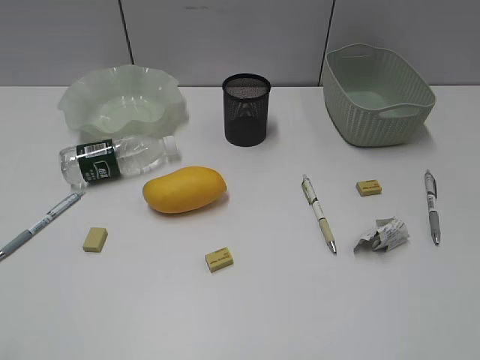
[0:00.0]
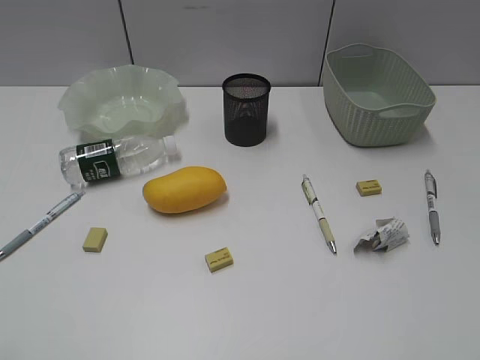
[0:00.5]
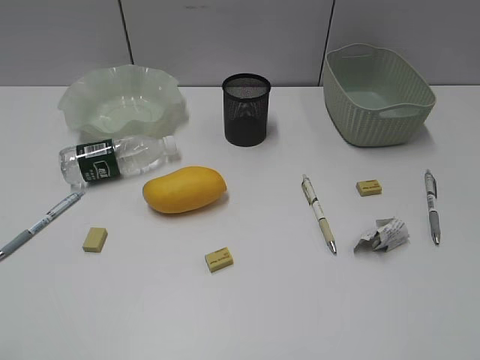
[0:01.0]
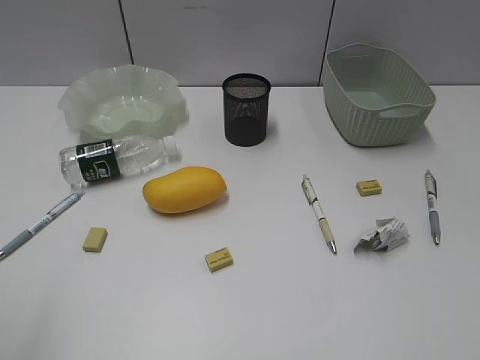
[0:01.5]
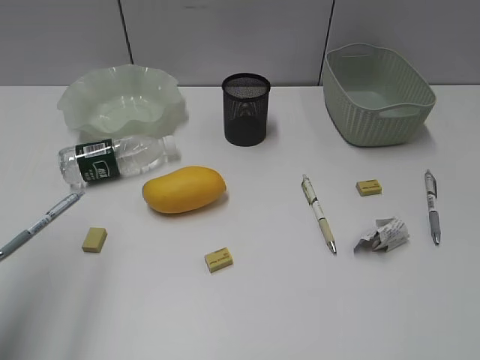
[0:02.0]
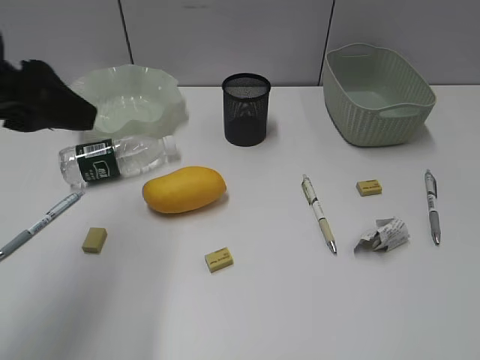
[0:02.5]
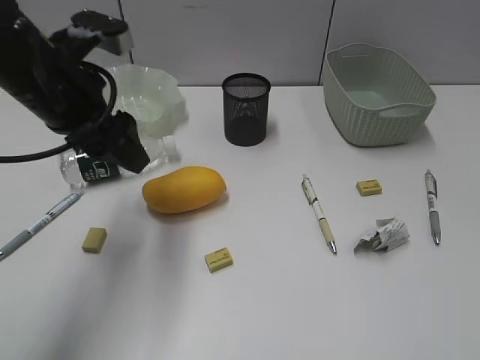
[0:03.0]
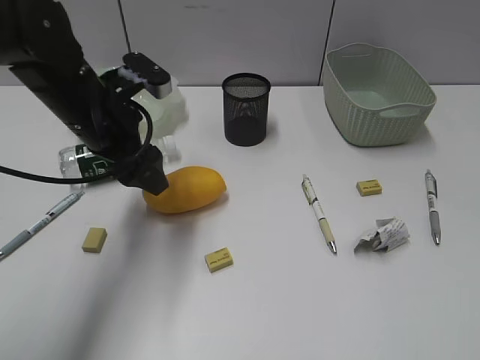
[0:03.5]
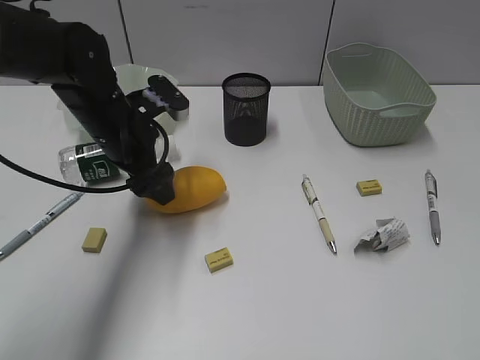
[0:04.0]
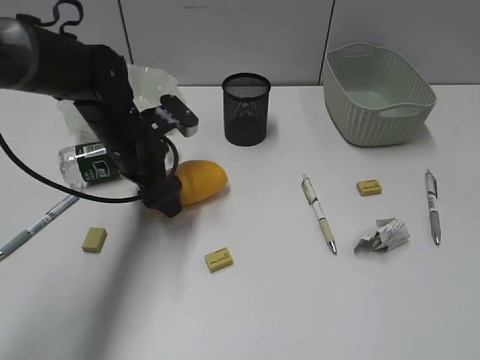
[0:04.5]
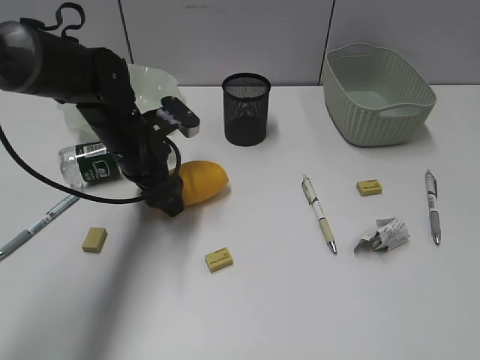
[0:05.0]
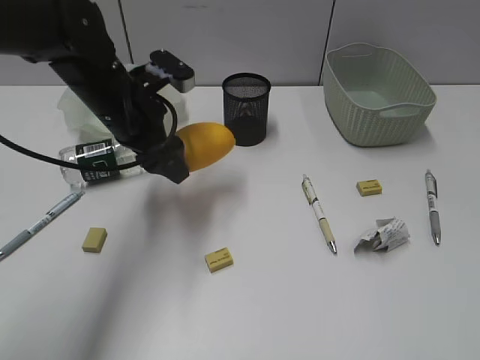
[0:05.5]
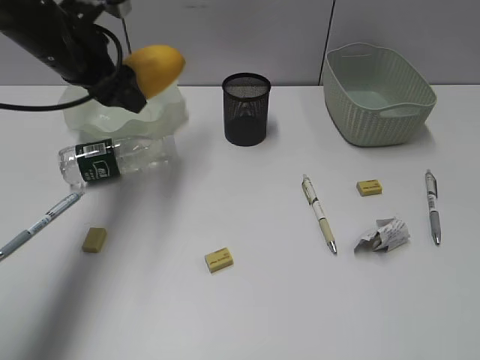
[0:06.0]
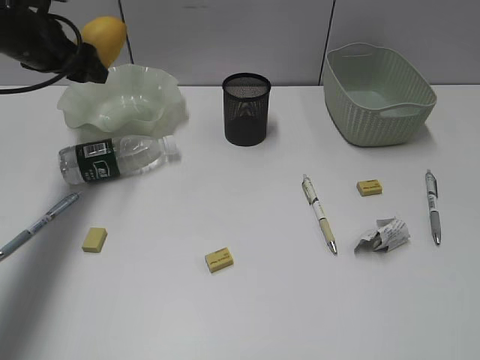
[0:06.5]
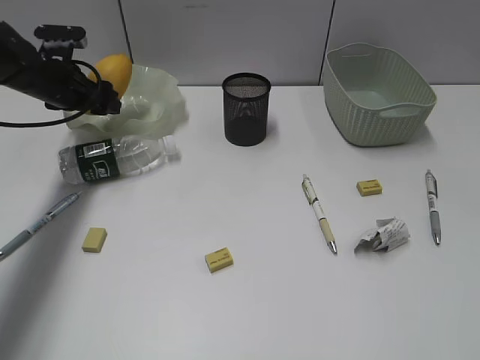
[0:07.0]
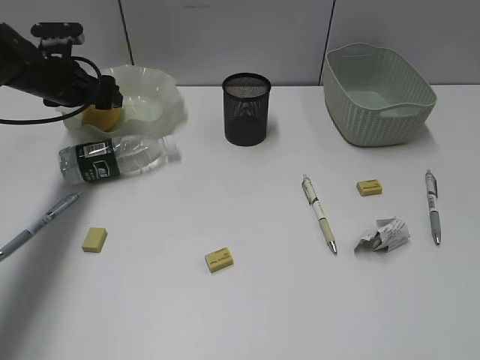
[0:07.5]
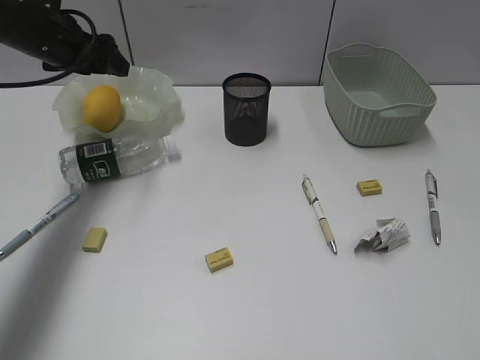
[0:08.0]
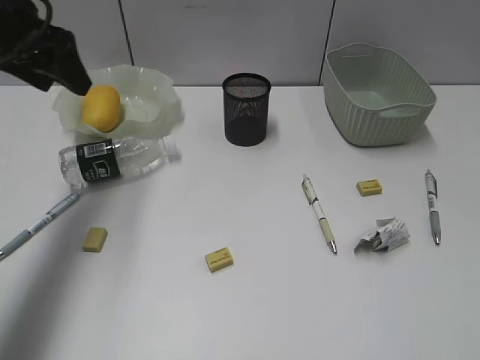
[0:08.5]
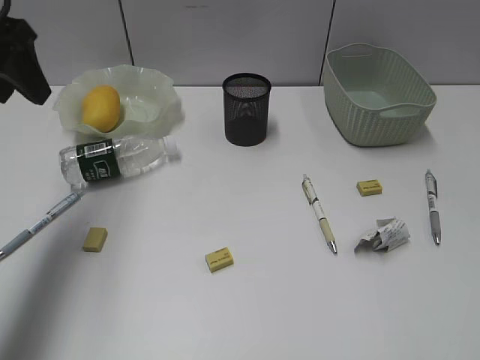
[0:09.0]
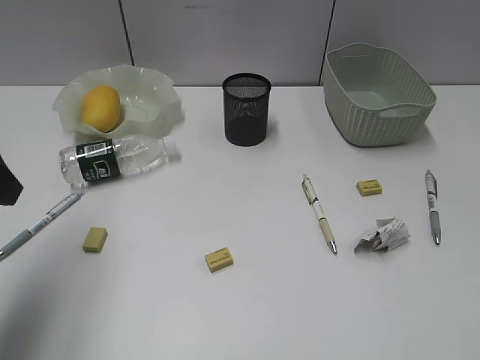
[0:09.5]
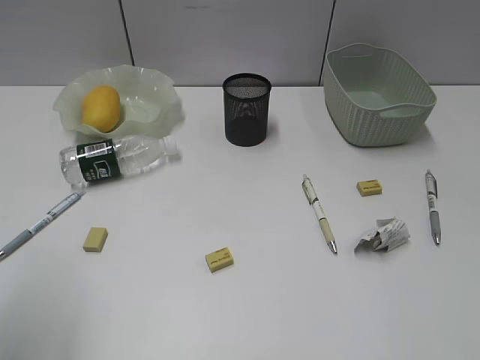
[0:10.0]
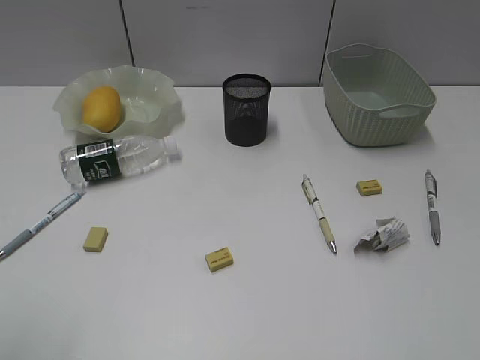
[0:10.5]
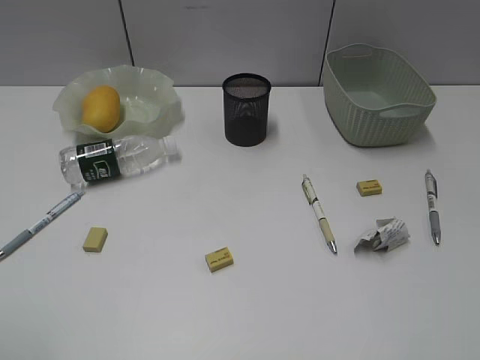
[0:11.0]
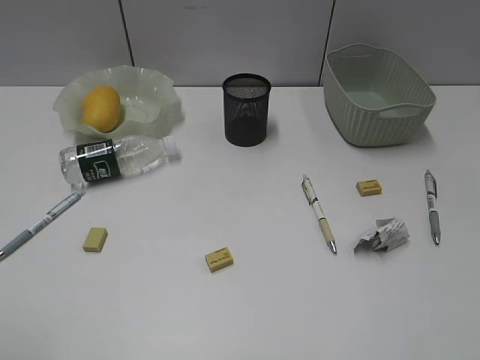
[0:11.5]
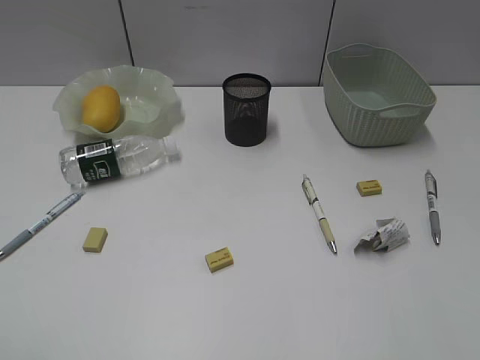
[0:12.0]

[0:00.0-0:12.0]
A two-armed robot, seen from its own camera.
Step, 0:02.5 to 0:05.0: Grasp the mango with left gripper.
Step, 0:05.5 to 0:07.5: Place the mango in the plate with left gripper.
0:02.0 to 0:04.0: The left gripper is displaced forward, downward and to the right by about 30 cm.
0:04.0 to 0:06.0: The left gripper is displaced upward and to the left by some 10 cm.
0:06.0 to 0:08.0: The left gripper travels downward and back again, roughly 10 cm each way.
0:08.0 to 0:10.0: The left gripper heads backward, covering about 35 cm.

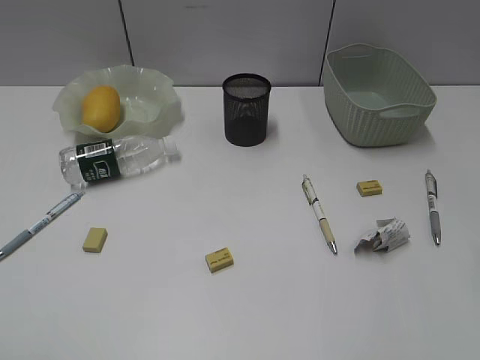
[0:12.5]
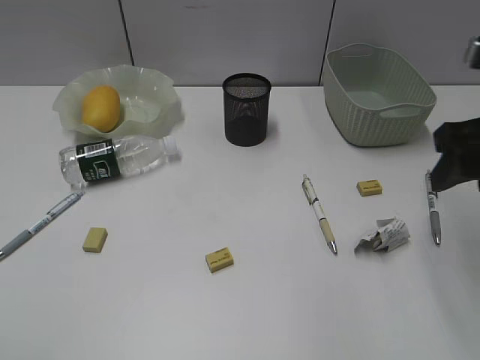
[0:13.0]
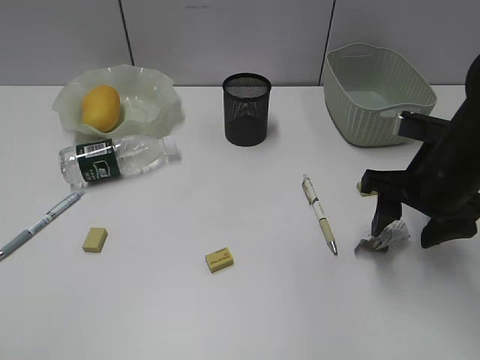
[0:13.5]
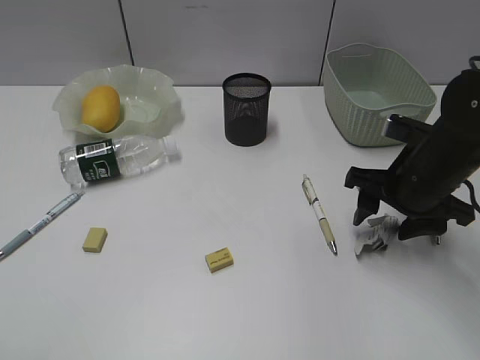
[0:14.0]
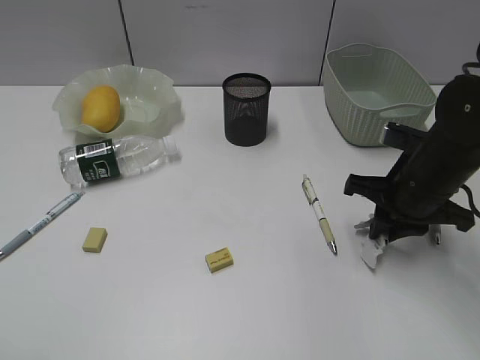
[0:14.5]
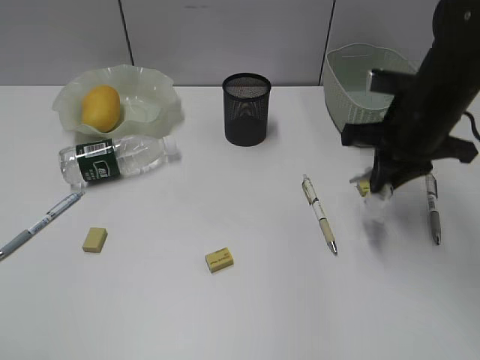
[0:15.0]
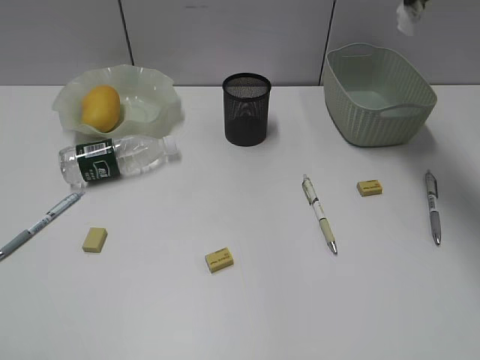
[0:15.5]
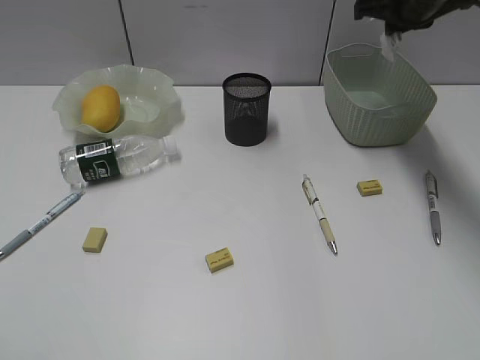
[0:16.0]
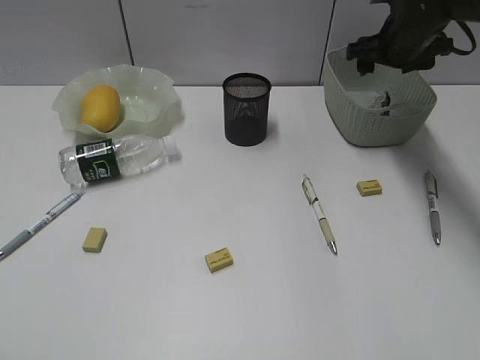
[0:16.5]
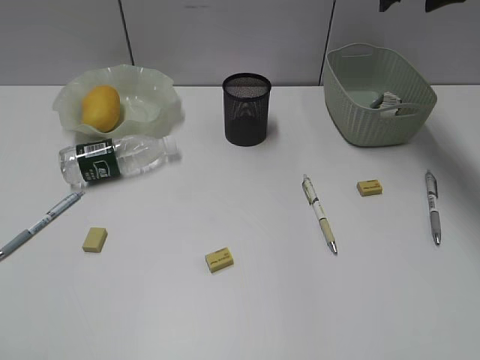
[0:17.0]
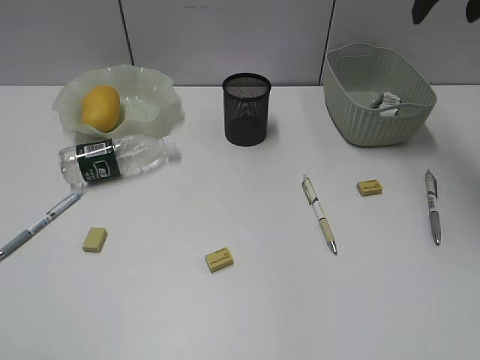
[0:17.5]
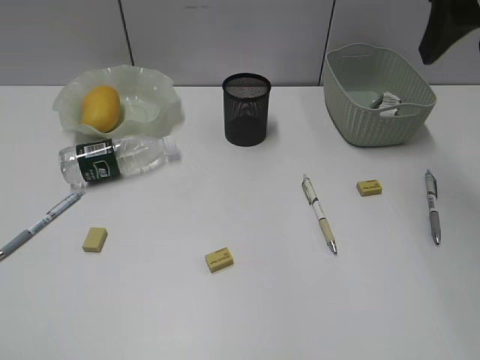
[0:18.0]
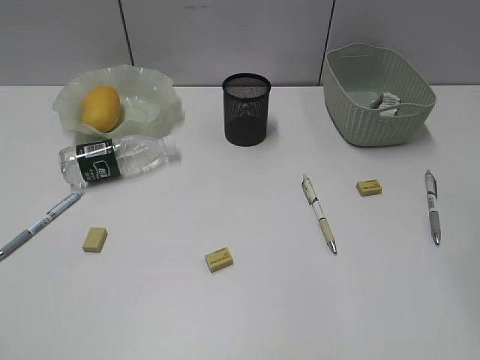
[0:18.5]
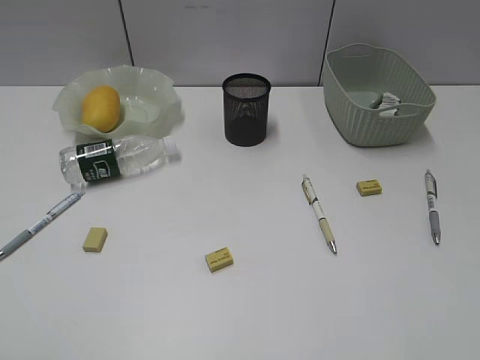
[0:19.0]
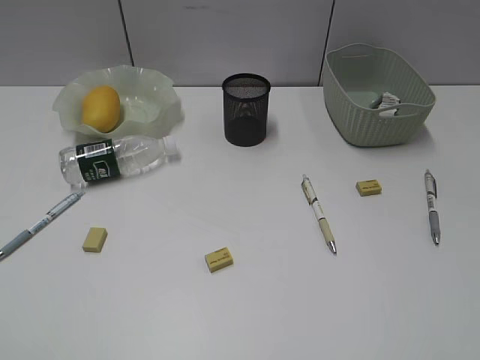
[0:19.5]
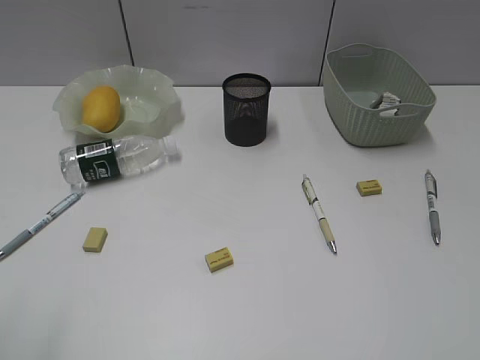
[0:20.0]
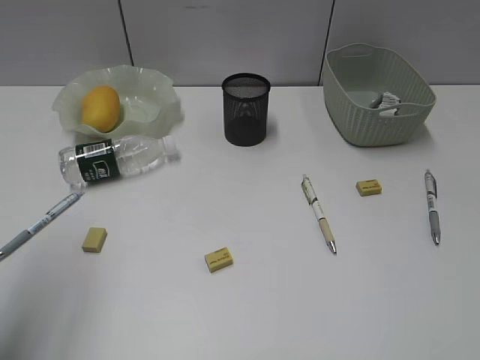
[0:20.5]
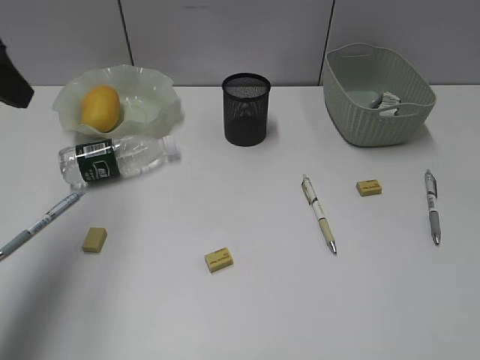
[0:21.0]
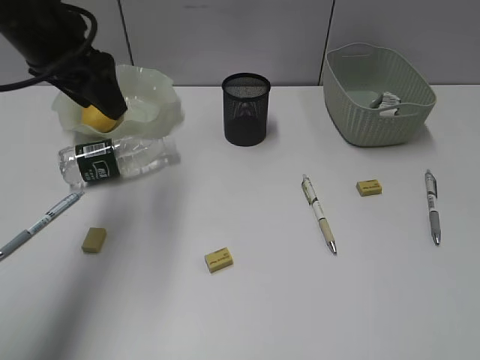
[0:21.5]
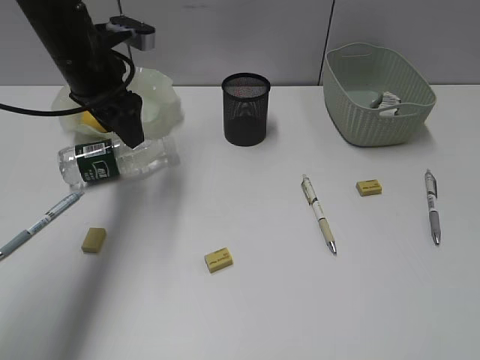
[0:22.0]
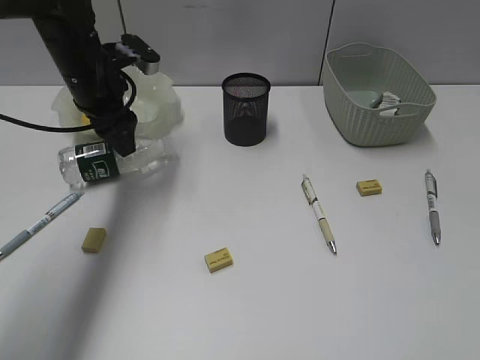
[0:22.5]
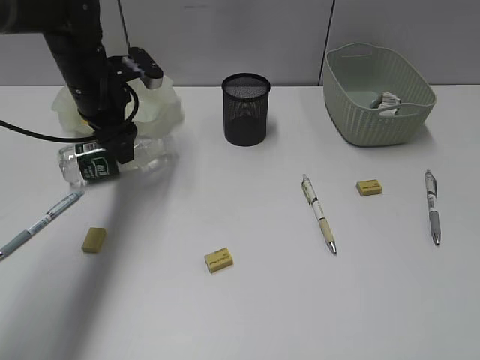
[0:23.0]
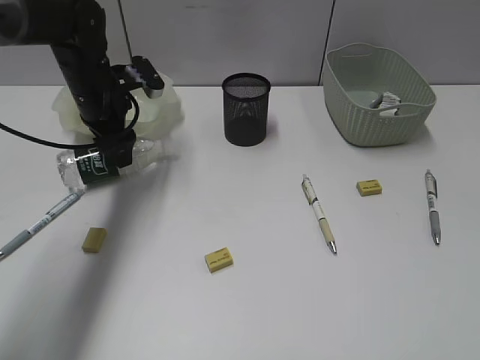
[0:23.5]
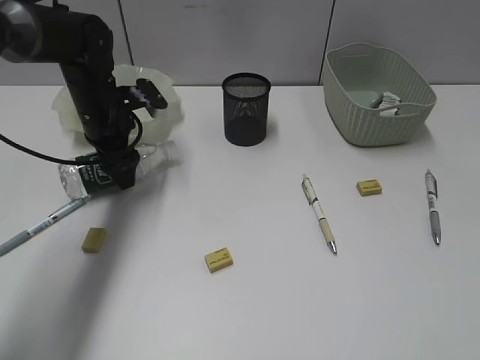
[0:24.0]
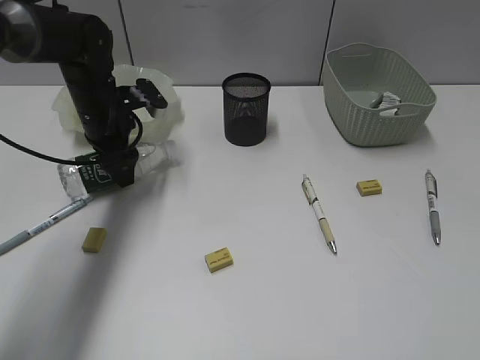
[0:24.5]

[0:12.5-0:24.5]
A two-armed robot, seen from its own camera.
Step, 0:12.5 to 0:14.5: Grasp the waste paper with right gripper.
Step, 0:15.0 to 0:16.5: Place the waste paper in the basket with right gripper.
Step, 0:17.0 to 0:24.5: Grasp the bottle with left gripper.
0:12.5 to 0:14.5: The right gripper is displaced downward, forward and to the left by about 20 cm, and closes.
0:14.5 to 0:16.5: The right gripper heads forward, covering roughly 20 cm, reaches about 20 cm upward, then returns, and opens its fingers.
0:16.5 to 0:18.5: The right gripper shifts roughly 35 cm backward and upward.
0:18.5 to 0:20.5: The left gripper shifts roughly 20 cm forward.
0:20.5 to 0:22.5: The left gripper goes some 30 cm forward, downward and to the right.
0:22.5 to 0:24.5: The left gripper shifts about 5 cm downward.

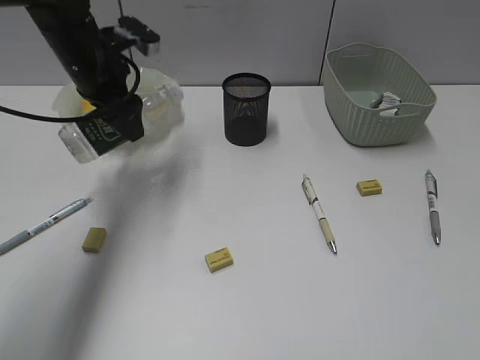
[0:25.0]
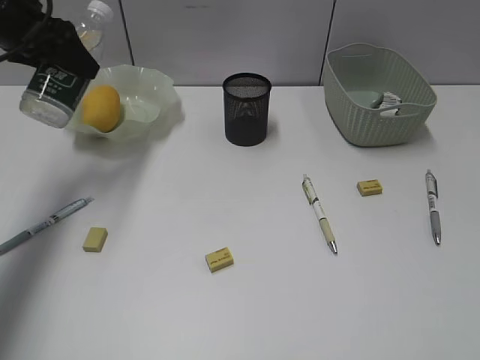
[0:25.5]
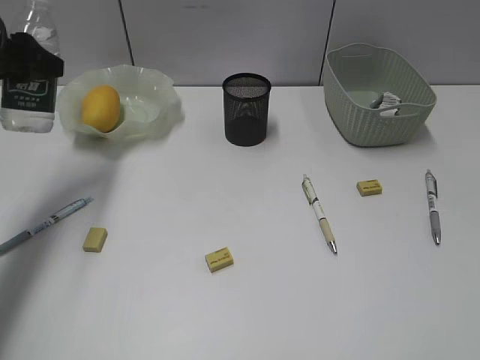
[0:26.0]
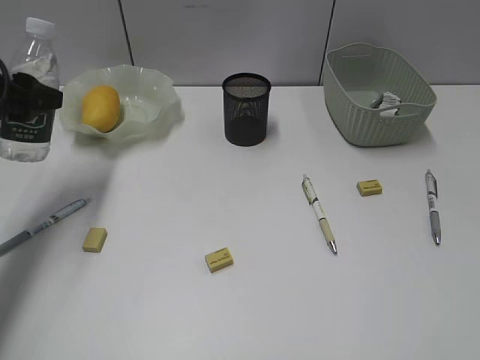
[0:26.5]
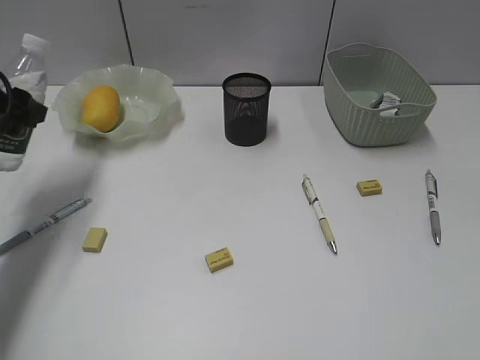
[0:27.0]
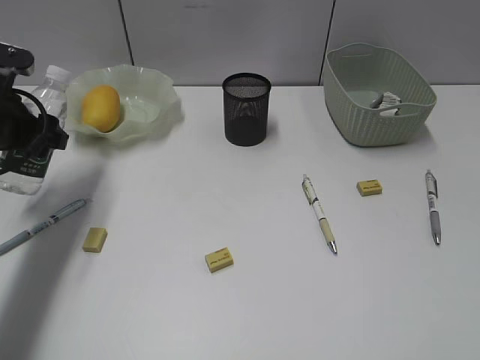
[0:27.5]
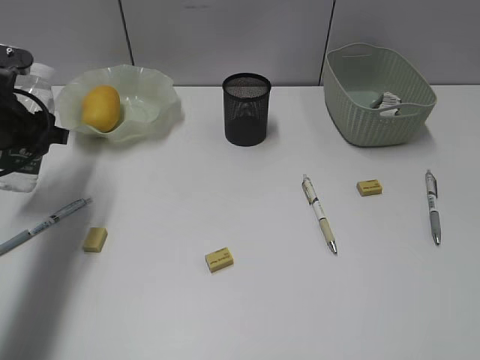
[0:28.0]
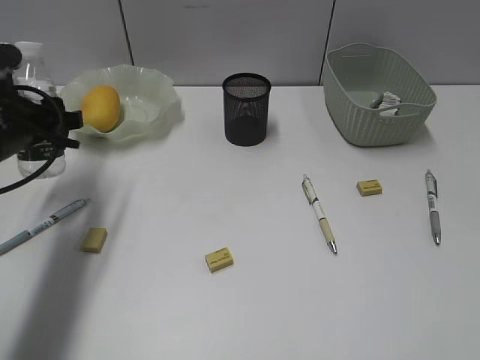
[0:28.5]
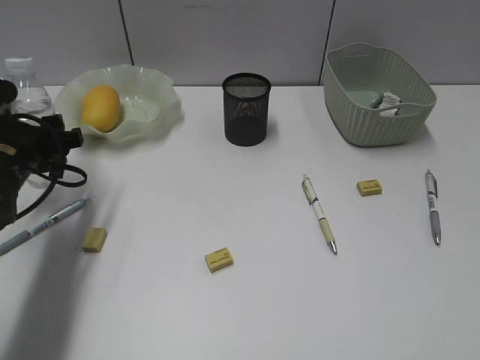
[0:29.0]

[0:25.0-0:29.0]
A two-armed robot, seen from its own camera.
0:25.0 to 0:27.0: The left gripper shifts about 15 cm to the left and backward.
0:27.0 to 0:29.0: The left gripper shifts some 10 cm downward.
